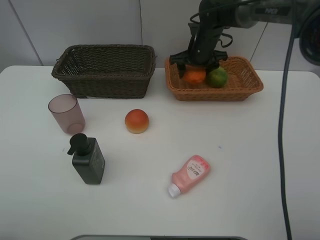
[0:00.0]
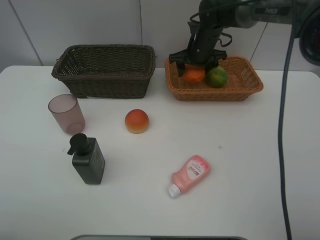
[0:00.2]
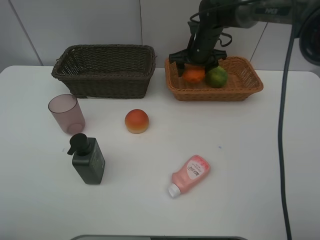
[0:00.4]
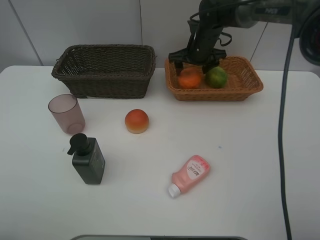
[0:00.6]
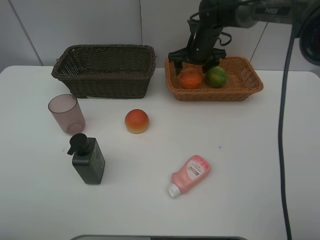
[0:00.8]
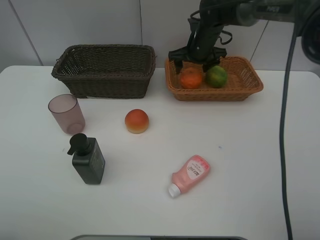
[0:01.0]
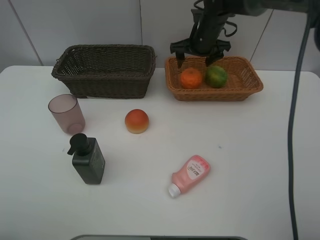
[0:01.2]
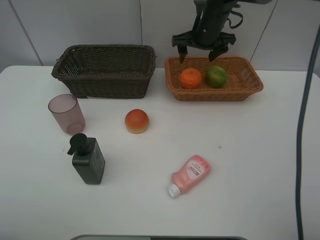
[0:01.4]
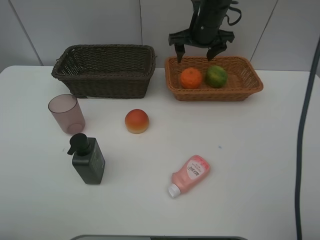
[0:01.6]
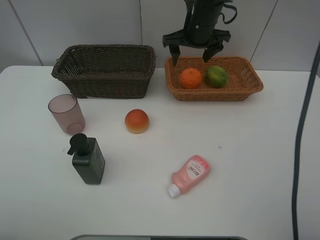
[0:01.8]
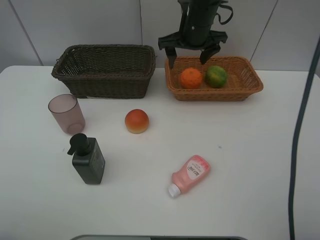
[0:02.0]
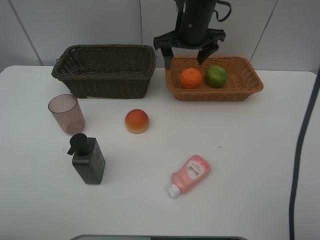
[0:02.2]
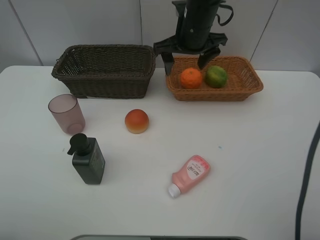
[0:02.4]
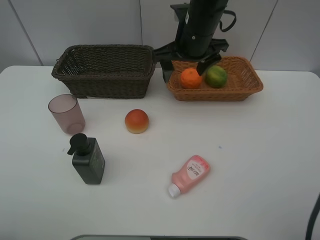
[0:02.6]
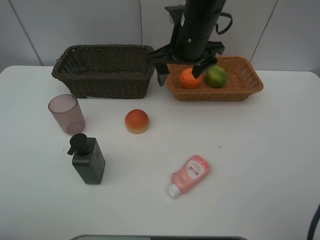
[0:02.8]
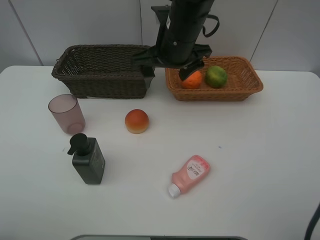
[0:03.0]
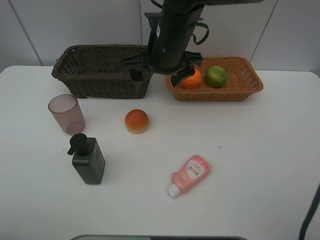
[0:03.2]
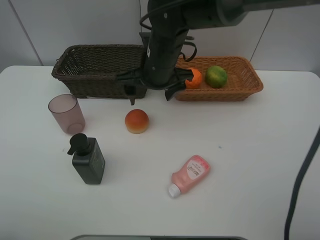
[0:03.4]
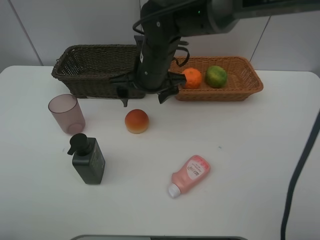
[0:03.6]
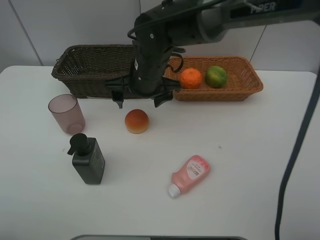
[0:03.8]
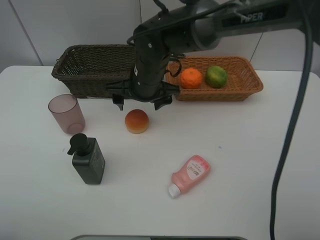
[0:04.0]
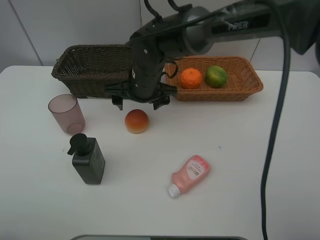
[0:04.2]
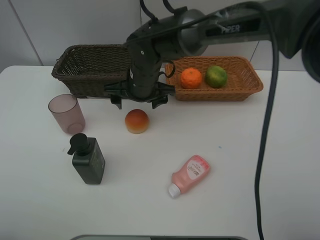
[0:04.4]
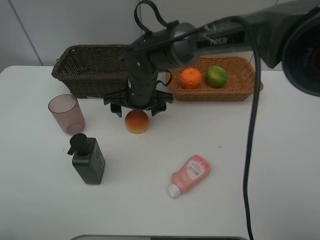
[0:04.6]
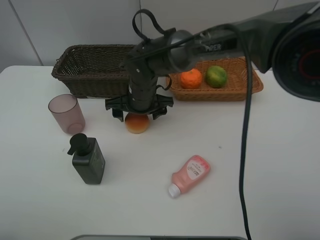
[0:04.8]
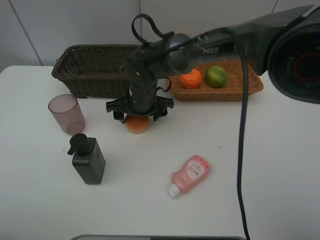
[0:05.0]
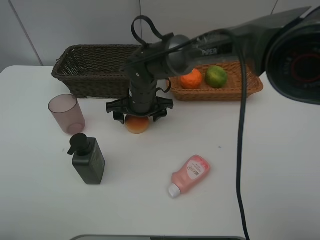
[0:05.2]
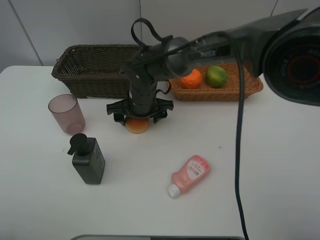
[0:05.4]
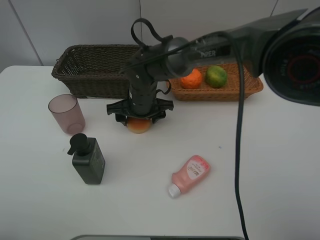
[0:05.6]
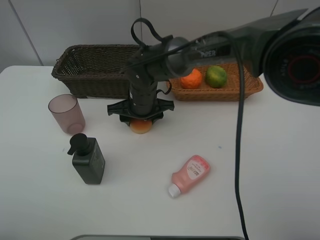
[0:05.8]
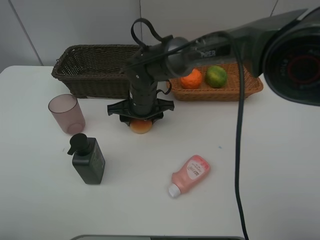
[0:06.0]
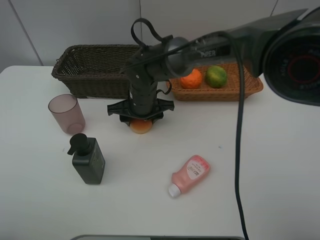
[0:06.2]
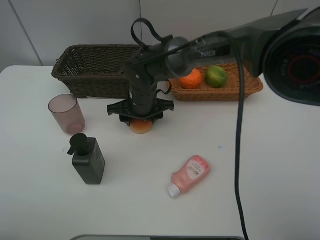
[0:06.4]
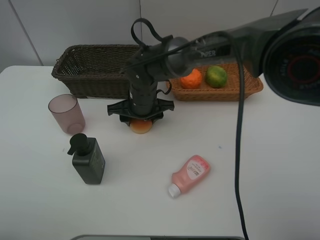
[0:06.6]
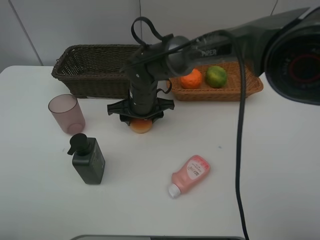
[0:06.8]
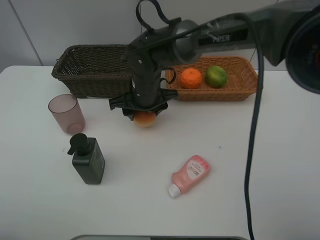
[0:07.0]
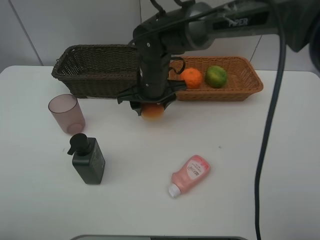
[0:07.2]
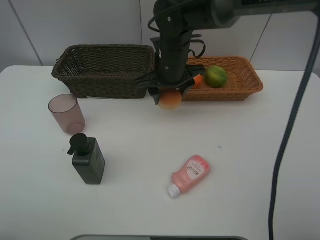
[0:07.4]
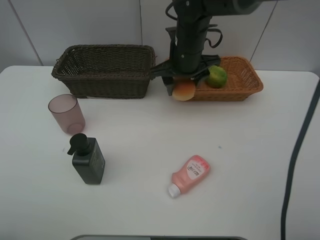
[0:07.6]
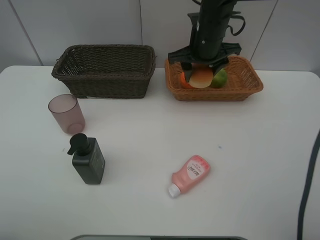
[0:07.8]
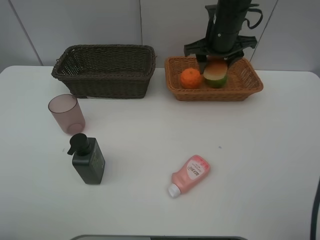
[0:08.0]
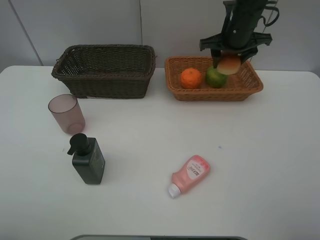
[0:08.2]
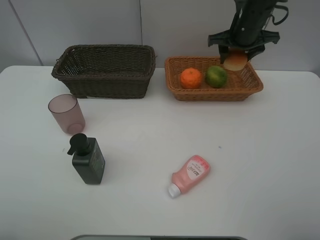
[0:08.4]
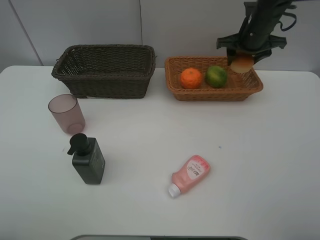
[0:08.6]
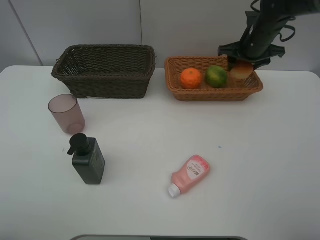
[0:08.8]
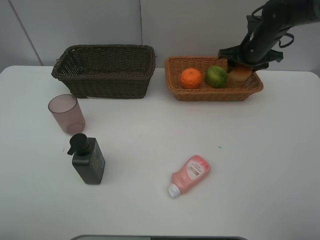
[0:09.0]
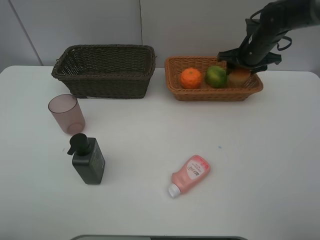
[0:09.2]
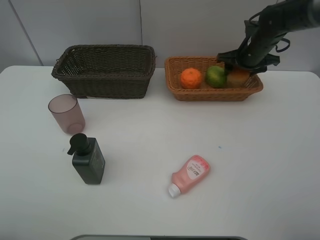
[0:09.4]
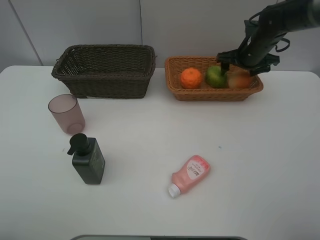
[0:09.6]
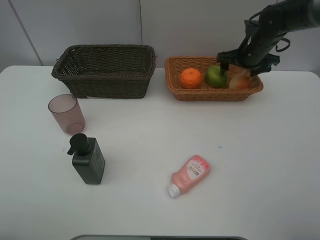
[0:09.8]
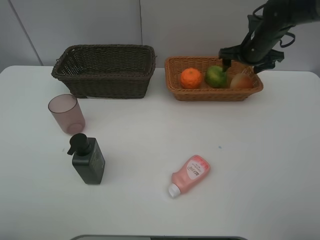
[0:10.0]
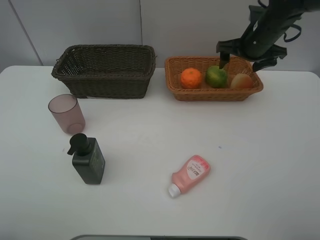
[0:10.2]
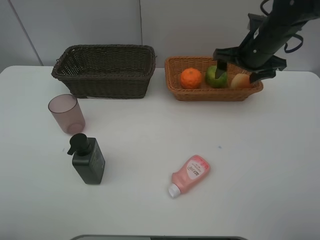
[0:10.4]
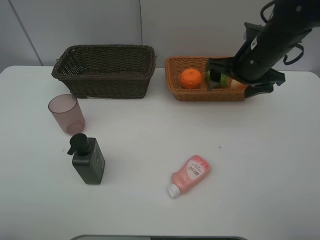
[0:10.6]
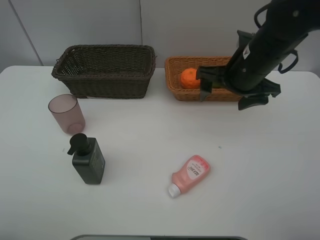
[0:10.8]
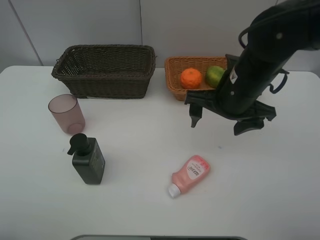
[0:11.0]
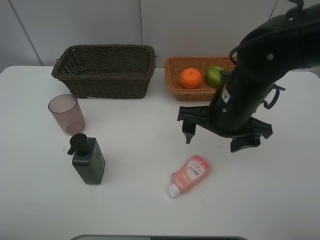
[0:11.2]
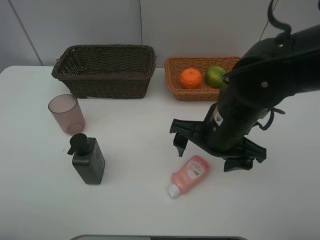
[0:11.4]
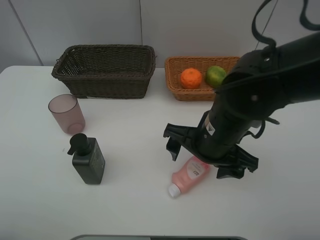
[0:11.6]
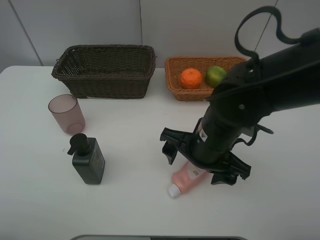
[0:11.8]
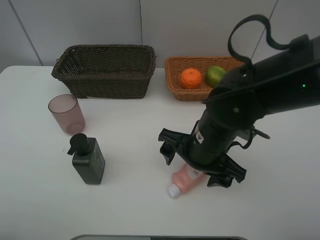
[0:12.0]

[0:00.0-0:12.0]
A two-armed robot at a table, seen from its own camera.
Task of the whole recording: place multiple objects separately in different baskets.
0:00.0 to 0:01.6: The right gripper goes approximately 5 cm upward.
0:01.6 to 0:03.0: The right gripper is displaced backward and to the left by approximately 15 cm.
0:03.0 to 0:04.4: The right gripper goes about 10 cm downward and to the left.
0:04.4 to 0:06.0: The right gripper closes.
0:06.0 to 0:07.6: The right gripper shifts about 15 cm upward and to the right.
0:07.6 to 0:09.0: The right gripper moves to the right, roughly 20 cm.
0:09.0 to 0:10.4: The right gripper heads backward, covering roughly 10 cm, and opens its fingers.
0:10.4 to 0:12.0: The right gripper heads backward, to the left and downward, covering roughly 20 cm.

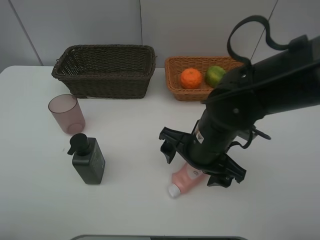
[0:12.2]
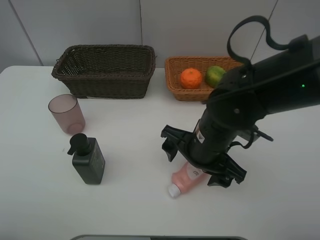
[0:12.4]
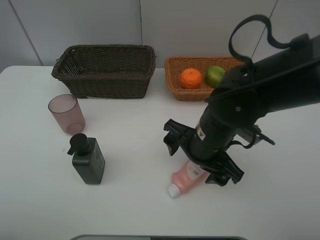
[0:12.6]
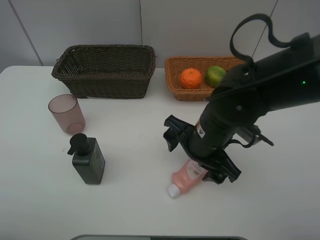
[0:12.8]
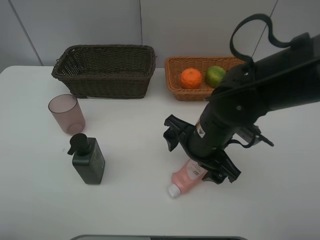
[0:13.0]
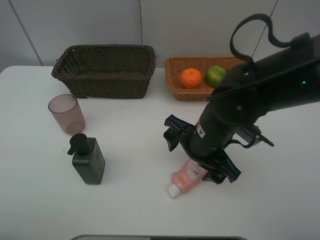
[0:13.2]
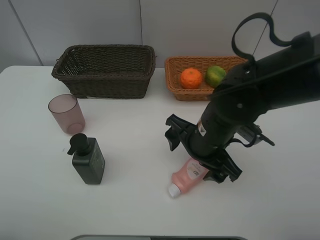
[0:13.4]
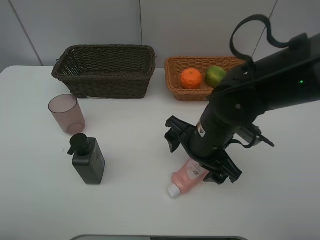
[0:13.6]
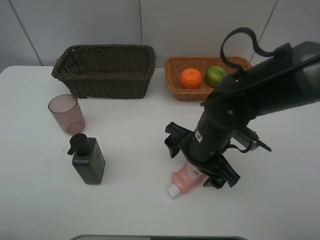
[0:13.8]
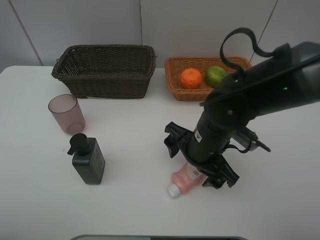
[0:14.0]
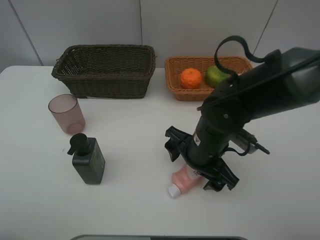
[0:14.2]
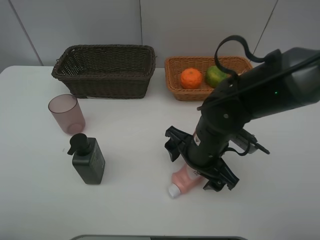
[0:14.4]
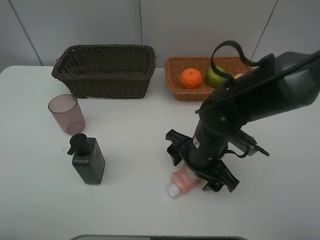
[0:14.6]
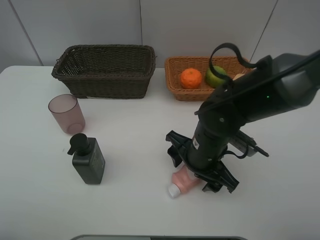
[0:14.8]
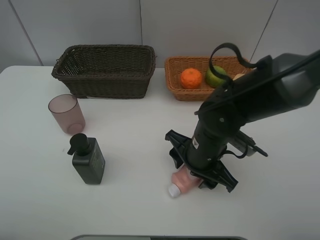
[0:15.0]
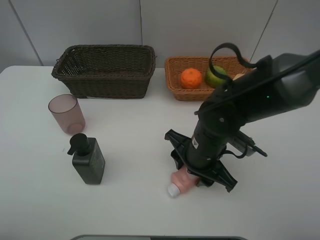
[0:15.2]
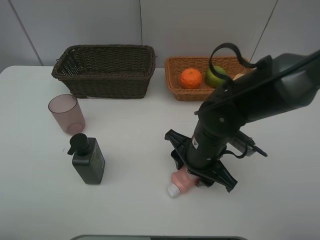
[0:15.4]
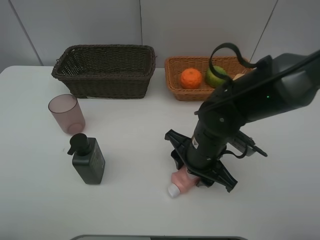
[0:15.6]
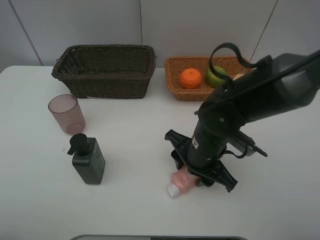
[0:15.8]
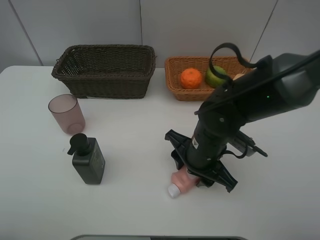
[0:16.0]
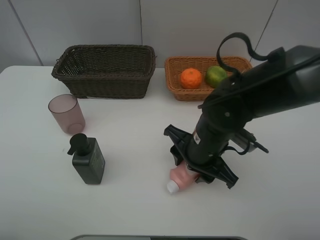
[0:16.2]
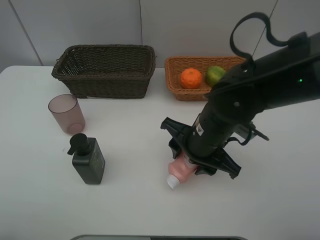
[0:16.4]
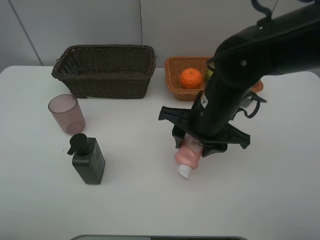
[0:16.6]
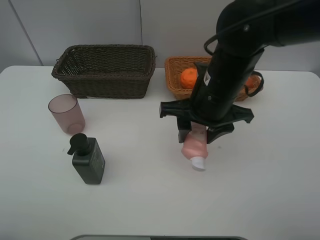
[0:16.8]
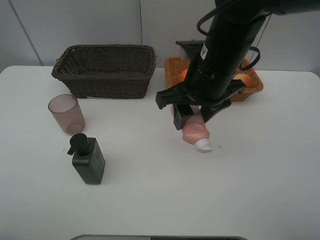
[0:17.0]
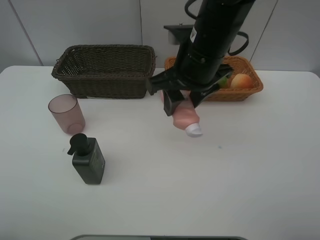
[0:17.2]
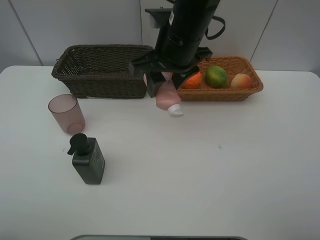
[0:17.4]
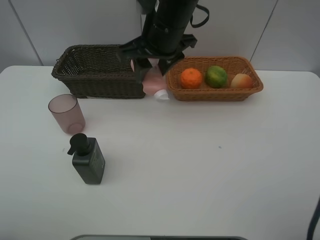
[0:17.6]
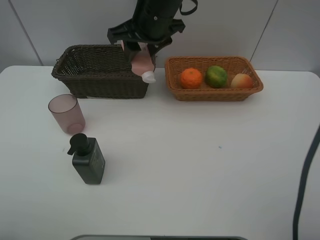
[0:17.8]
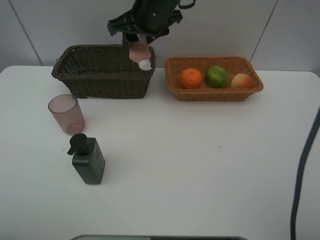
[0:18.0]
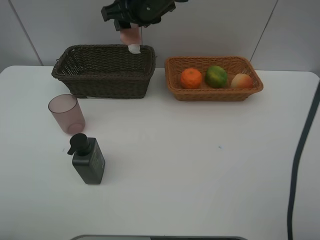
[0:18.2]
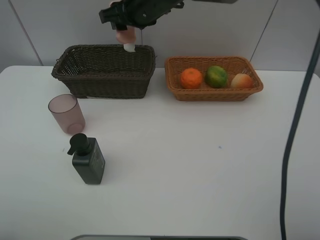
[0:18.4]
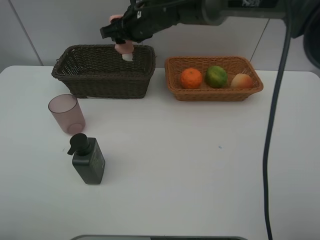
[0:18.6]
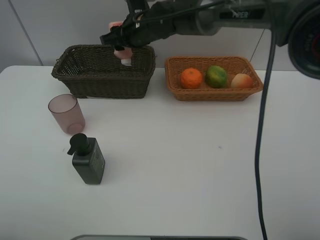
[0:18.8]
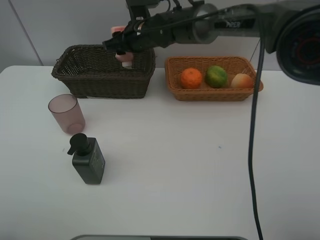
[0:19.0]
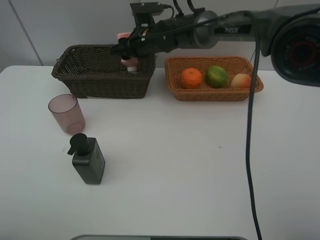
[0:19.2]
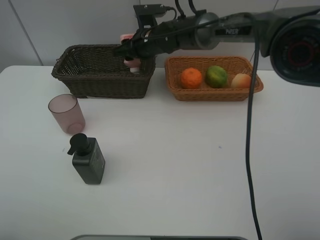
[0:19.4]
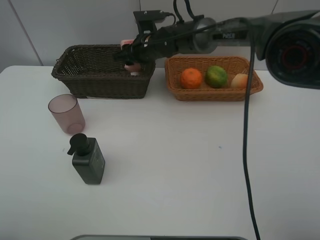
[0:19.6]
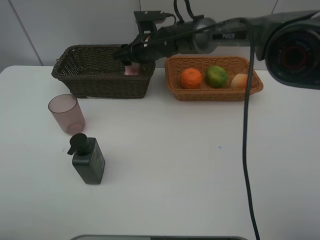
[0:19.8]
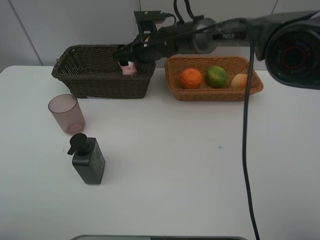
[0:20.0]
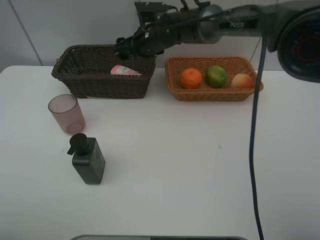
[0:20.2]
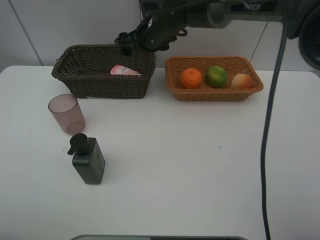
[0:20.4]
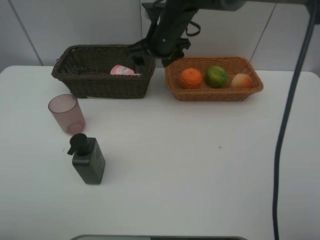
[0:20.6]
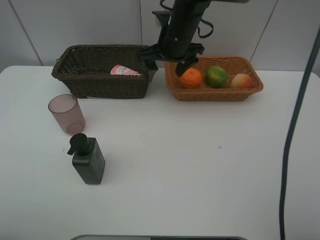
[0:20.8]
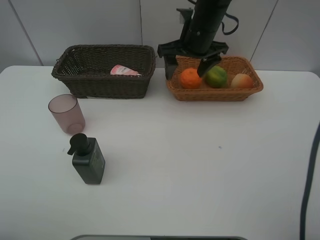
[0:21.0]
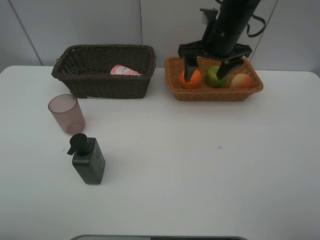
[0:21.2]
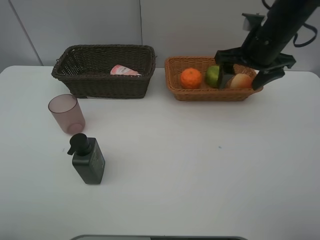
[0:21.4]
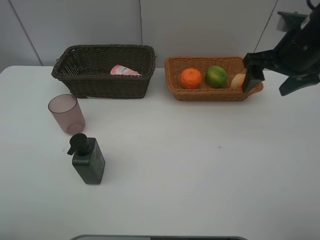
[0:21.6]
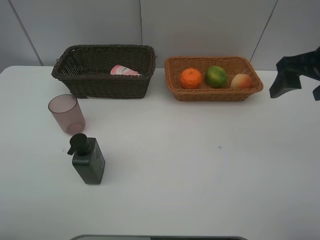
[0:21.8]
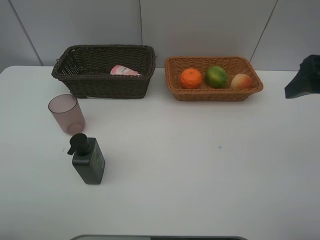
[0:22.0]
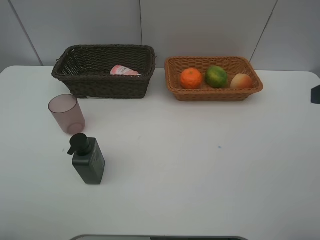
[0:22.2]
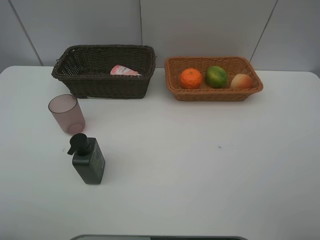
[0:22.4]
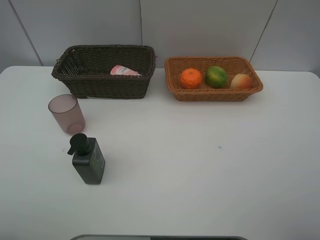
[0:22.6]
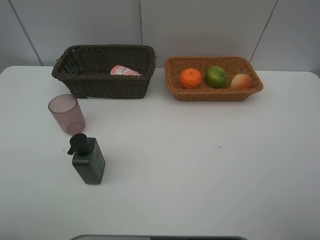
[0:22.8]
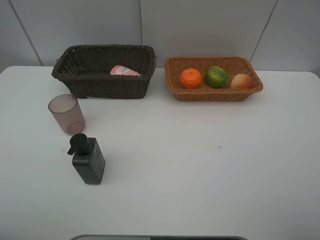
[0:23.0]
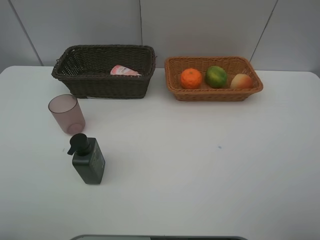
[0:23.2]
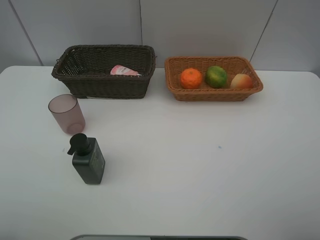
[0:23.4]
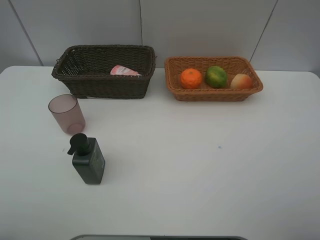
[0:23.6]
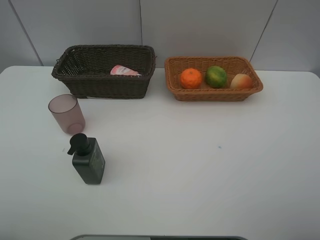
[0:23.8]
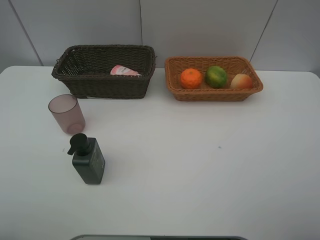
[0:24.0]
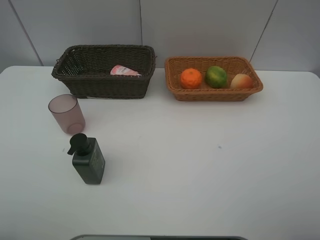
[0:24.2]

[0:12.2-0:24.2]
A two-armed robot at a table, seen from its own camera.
Task of the whole recording: place multiple objects separately in different baskets.
0:12.2 to 0:13.8: The grippers move only a little.
0:13.8 to 0:15.2: The right gripper closes.
0:15.2 to 0:16.6: The right gripper heads upward, covering roughly 10 cm.
0:16.6 to 0:18.2: The right gripper travels forward, to the left and upward by approximately 20 cm.
0:18.2 to 0:19.8: The right gripper is displaced downward and forward by some 15 cm, and opens.
0:19.8 to 0:21.2: The right gripper moves to the right, upward and backward, approximately 20 cm.
0:21.2 to 0:22.6: The right gripper travels backward and to the right by roughly 40 cm.
